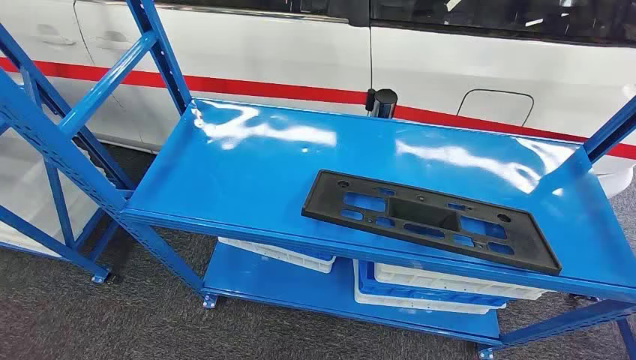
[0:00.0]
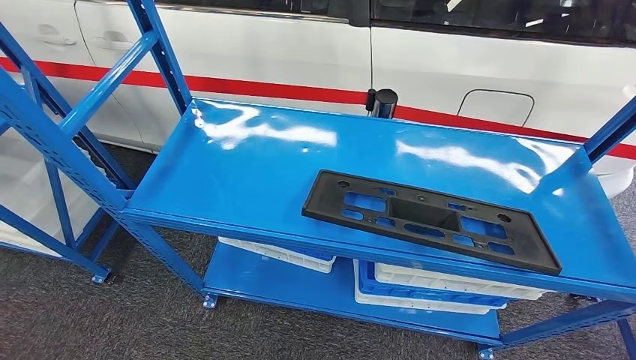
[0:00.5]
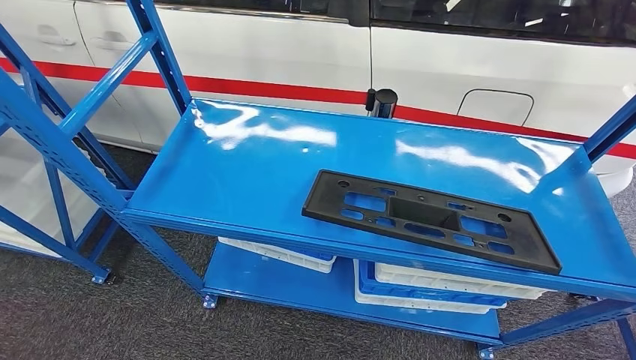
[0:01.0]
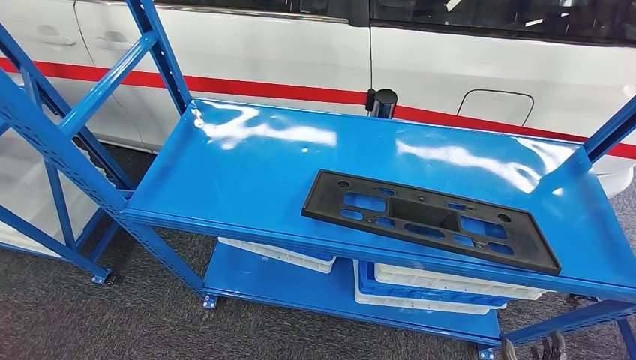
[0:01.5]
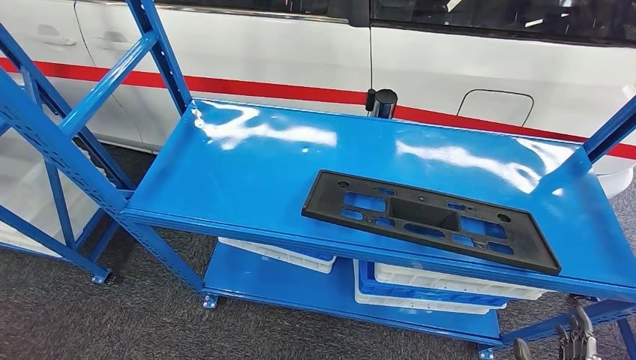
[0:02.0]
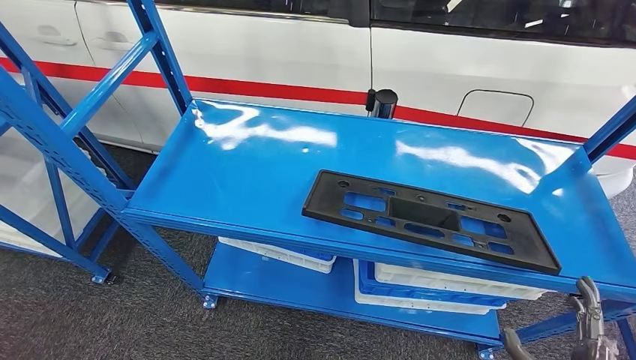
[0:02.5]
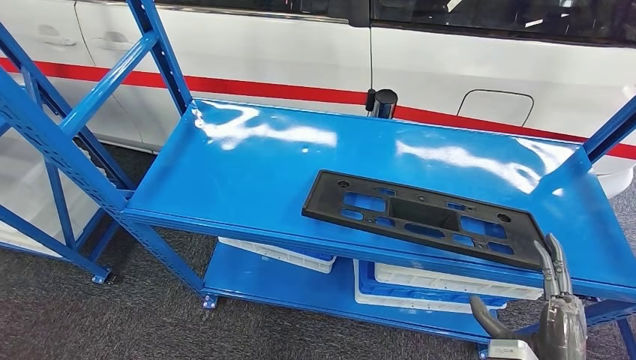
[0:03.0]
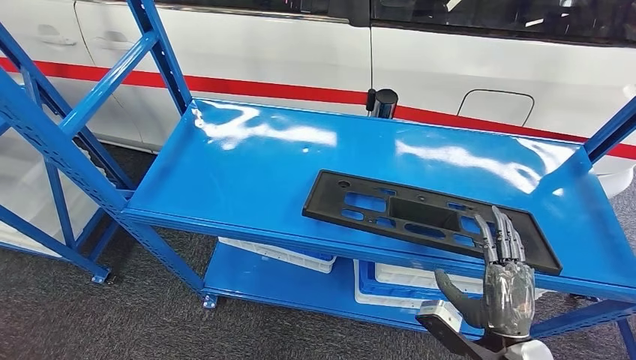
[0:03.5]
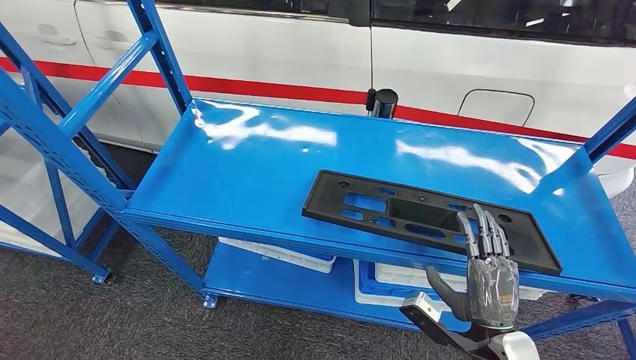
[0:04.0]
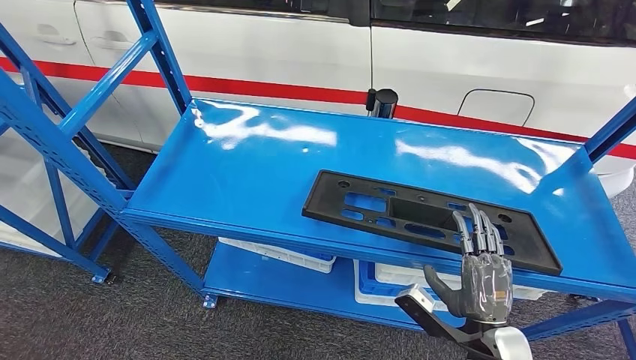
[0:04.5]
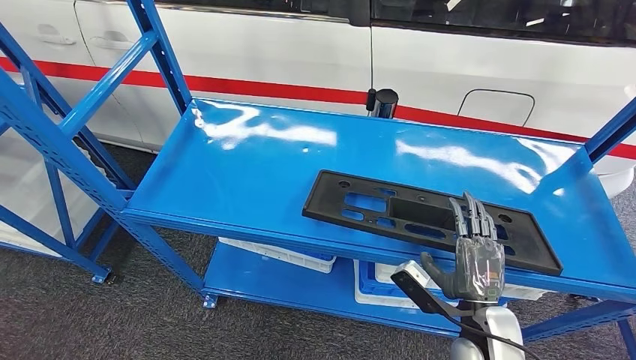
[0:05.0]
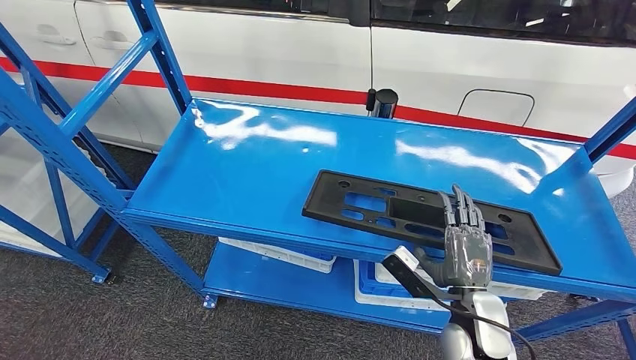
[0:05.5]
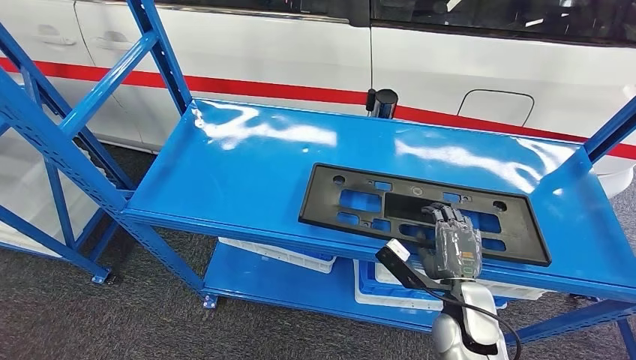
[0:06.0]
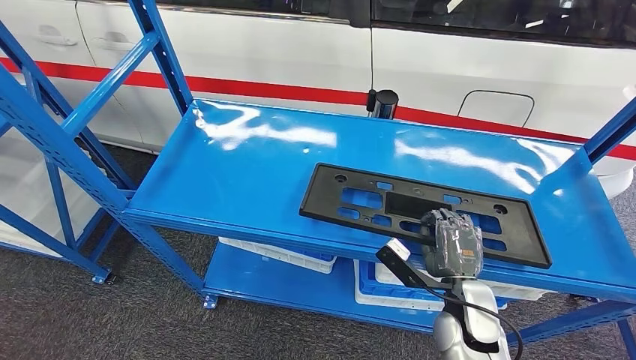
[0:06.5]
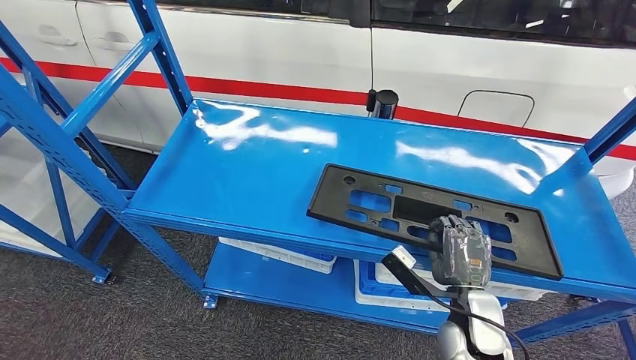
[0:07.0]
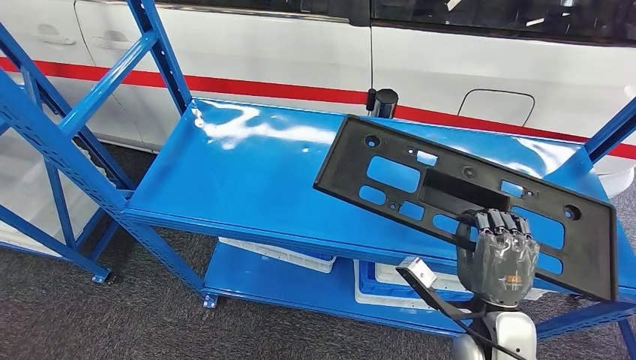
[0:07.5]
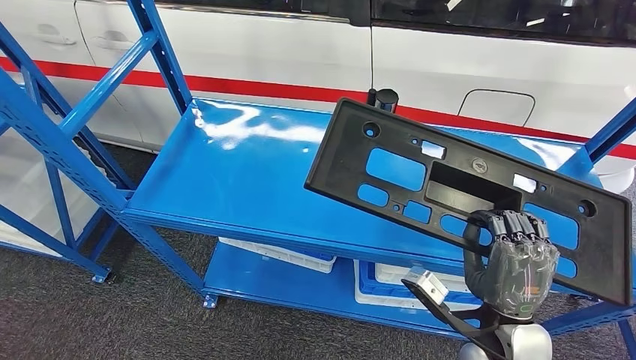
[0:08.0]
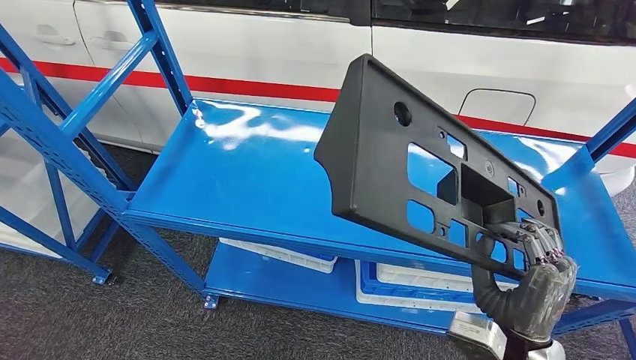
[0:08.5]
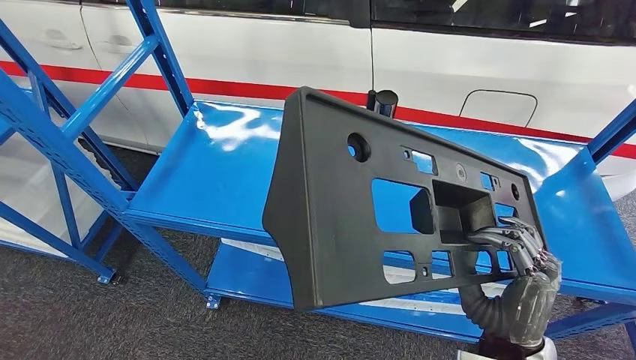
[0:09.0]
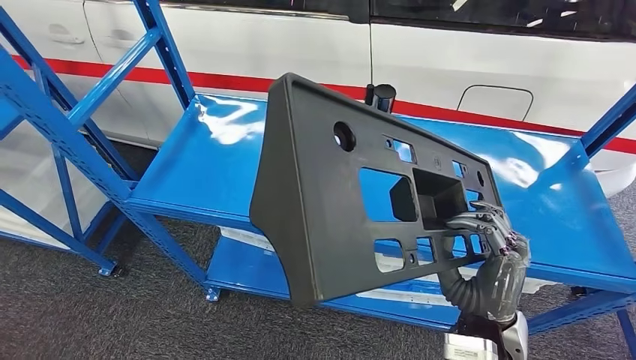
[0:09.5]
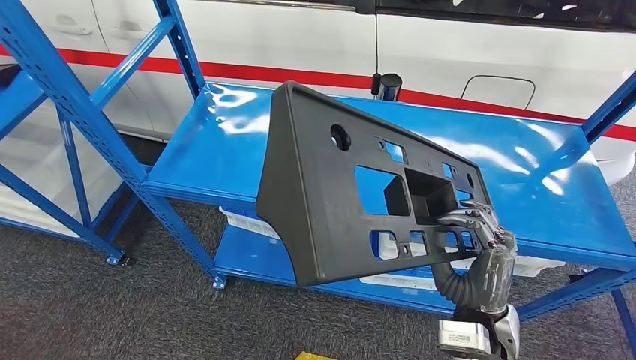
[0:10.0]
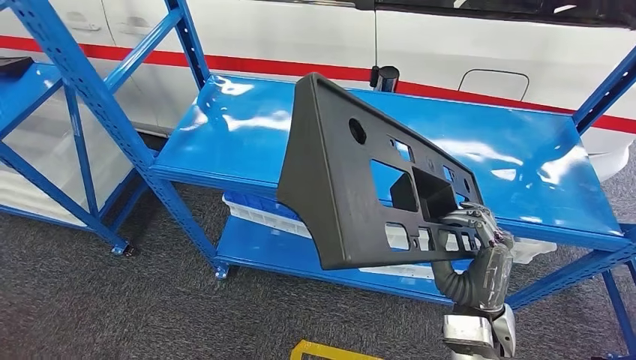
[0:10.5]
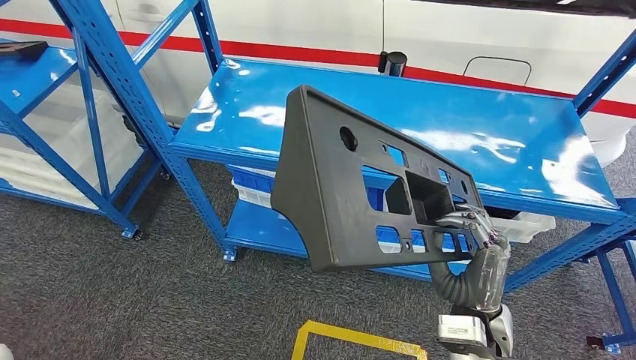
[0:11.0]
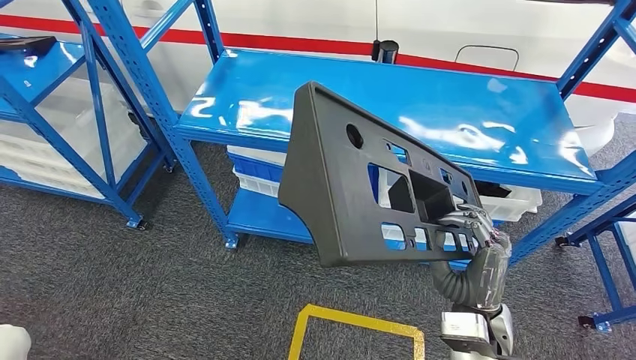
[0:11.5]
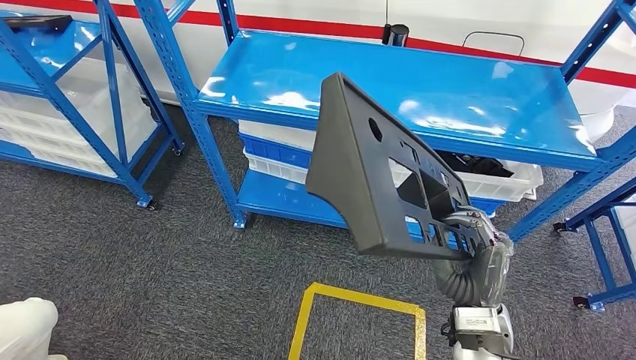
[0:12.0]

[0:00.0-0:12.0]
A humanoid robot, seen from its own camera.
Step, 0:00.0 to 0:11.0: Pick up the large material from the shelf.
0:02.0 to 0:04.0: The right hand goes some 15 cm to the left, upward and forward.
0:04.0 to 0:06.0: The right hand travels forward by about 10 cm.
0:06.0 to 0:08.0: The right hand shifts some 10 cm upward and backward.

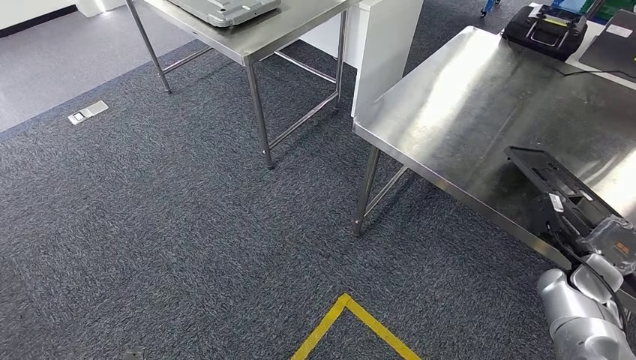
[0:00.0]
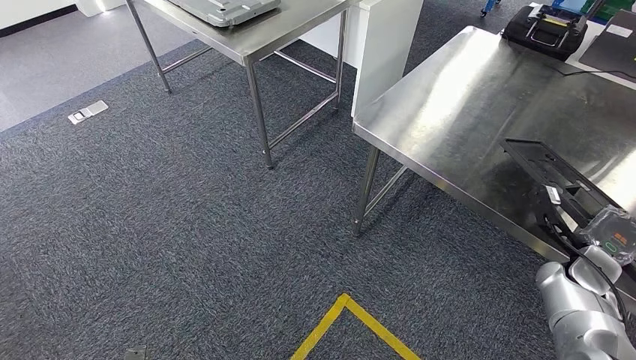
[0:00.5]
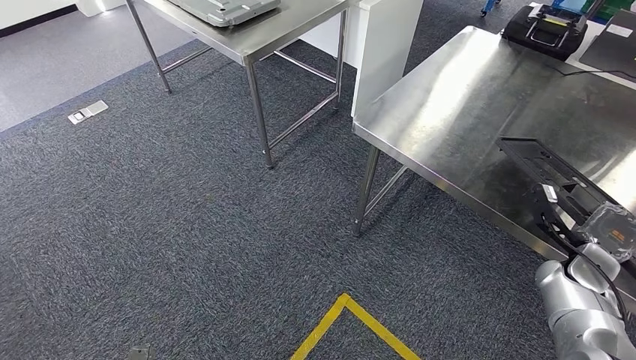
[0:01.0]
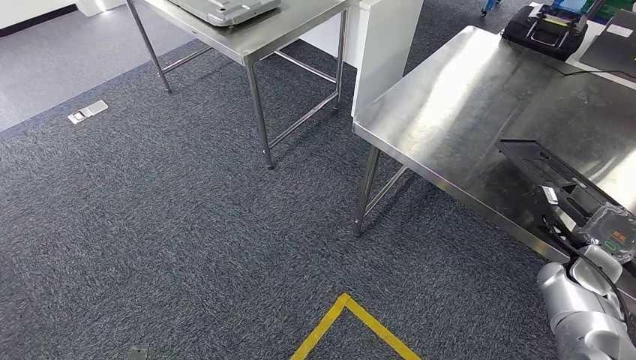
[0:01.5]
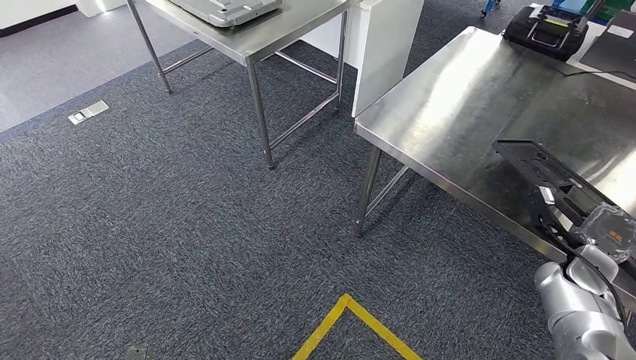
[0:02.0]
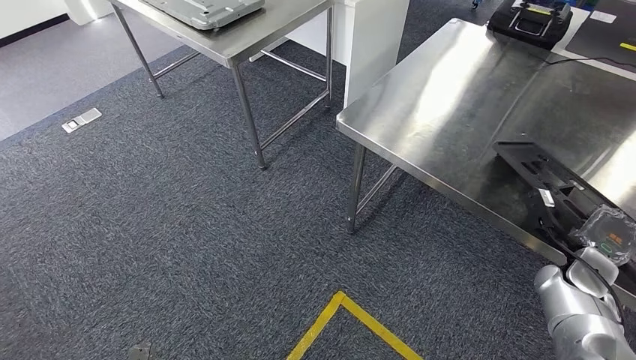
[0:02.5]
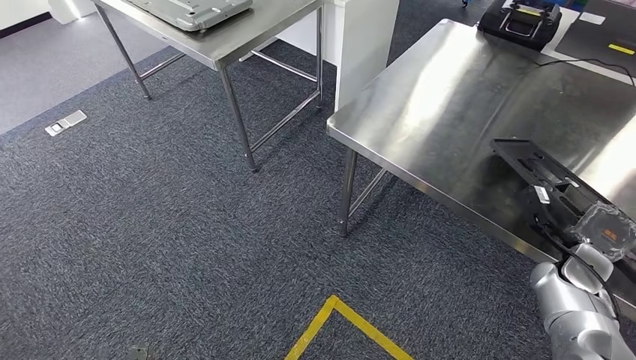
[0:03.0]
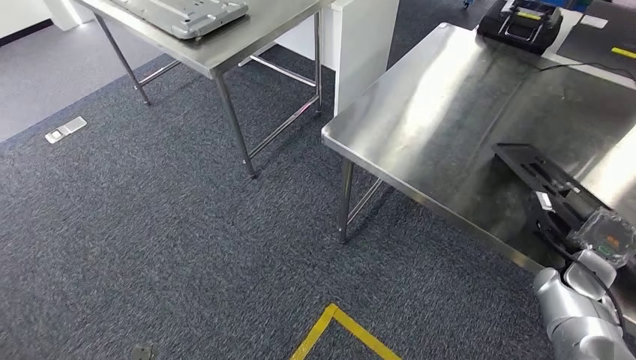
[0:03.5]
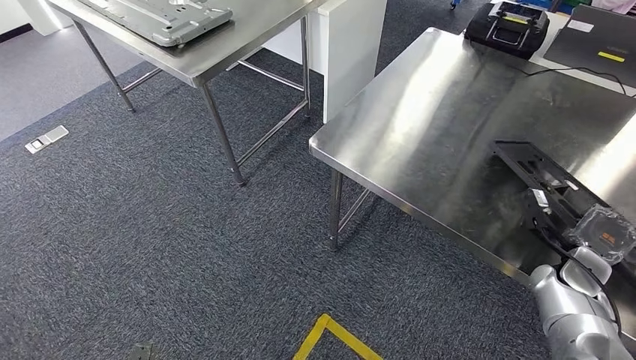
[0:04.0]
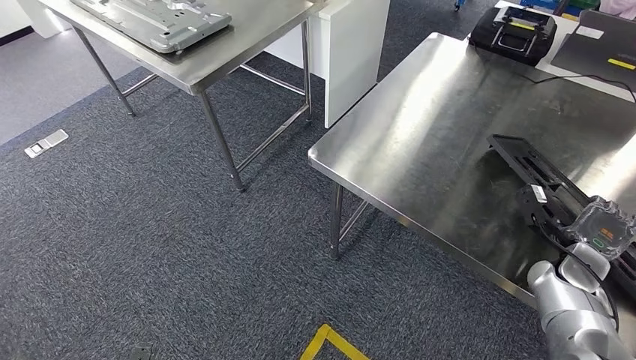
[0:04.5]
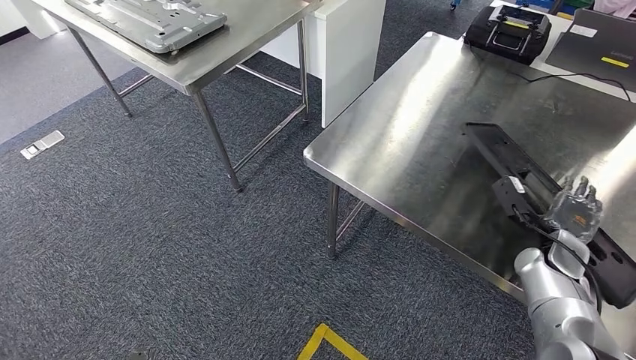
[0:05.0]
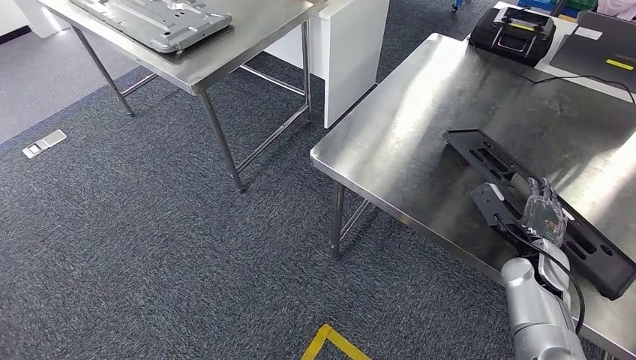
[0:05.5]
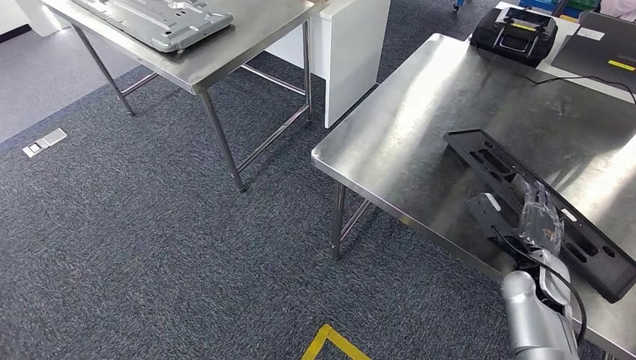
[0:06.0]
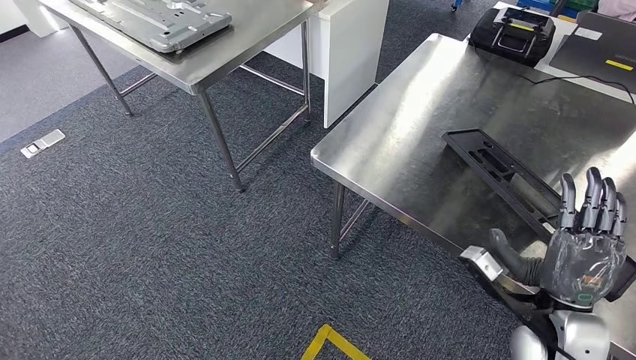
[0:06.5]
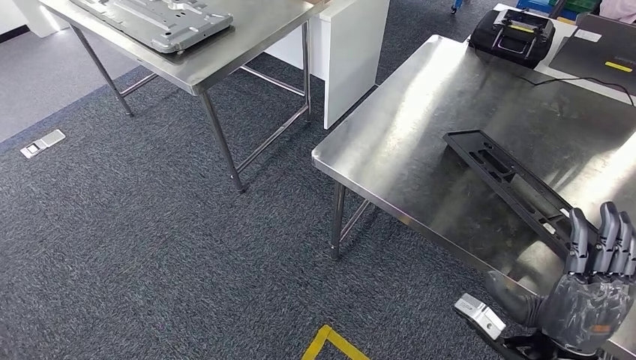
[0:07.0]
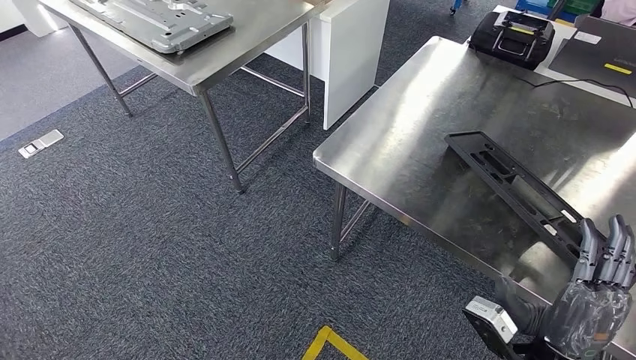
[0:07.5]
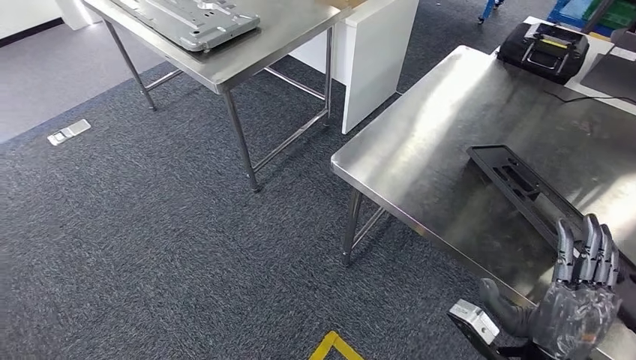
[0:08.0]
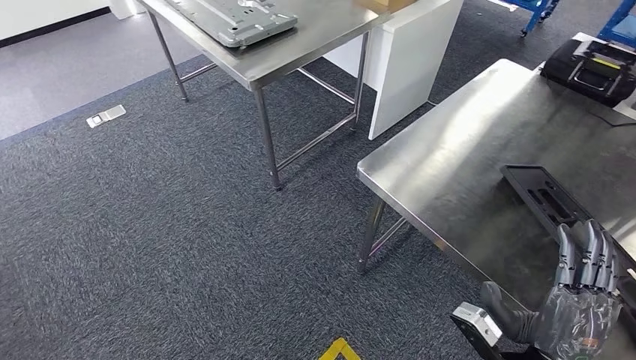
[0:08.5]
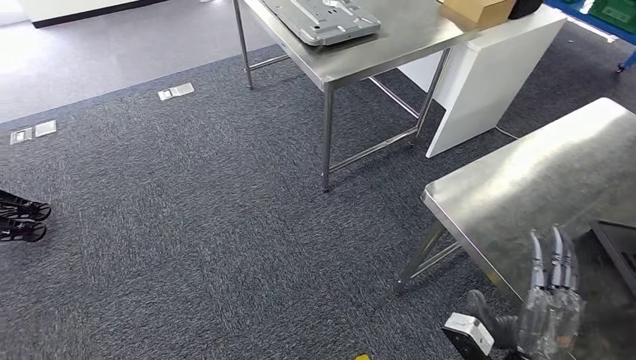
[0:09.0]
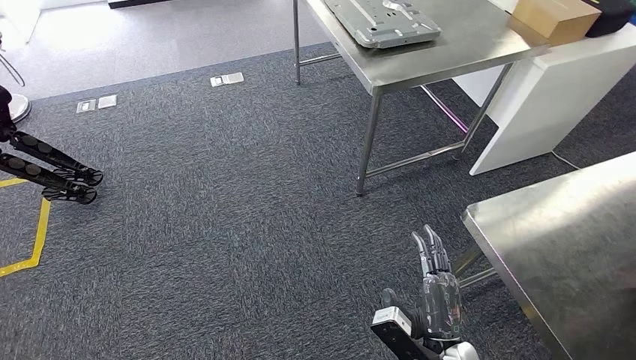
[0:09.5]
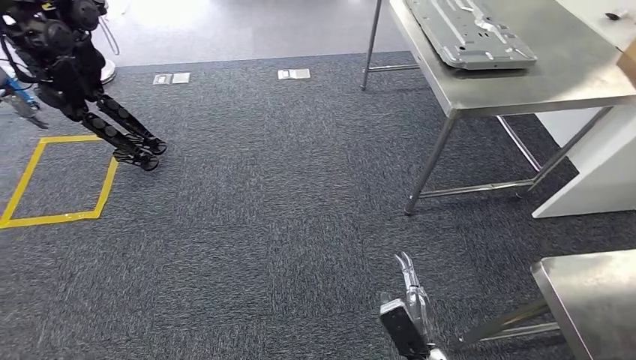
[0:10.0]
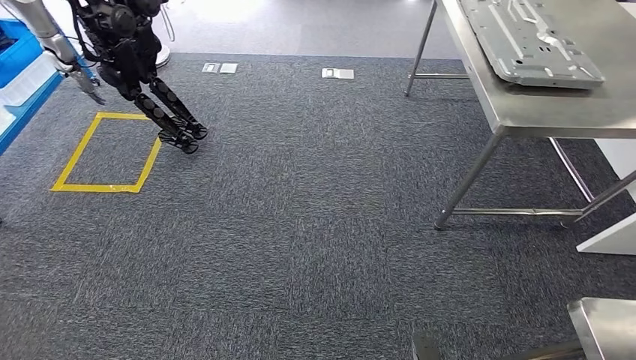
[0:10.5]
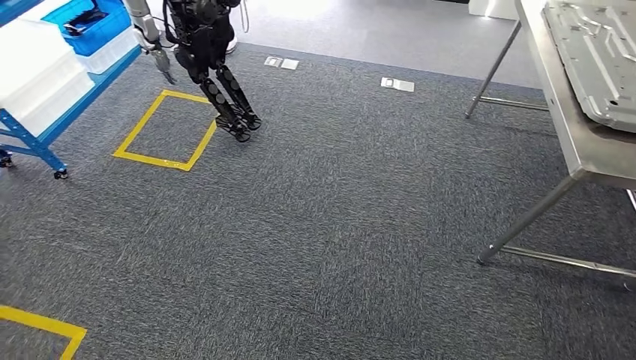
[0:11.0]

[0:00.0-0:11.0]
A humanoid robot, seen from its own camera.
Step, 0:00.0 to 0:11.0: Insert the large material into the corresponding slot on the workbench.
0:00.0 to 0:02.0: The hands move only a little.
0:05.5 to 0:07.5: The right hand shifts some 20 cm backward and to the left, while the left hand heads to the right, covering roughly 5 cm.
